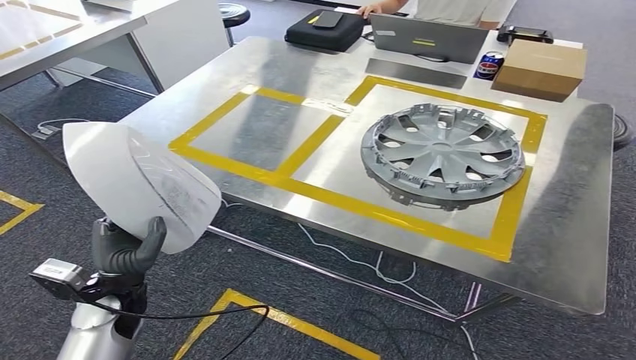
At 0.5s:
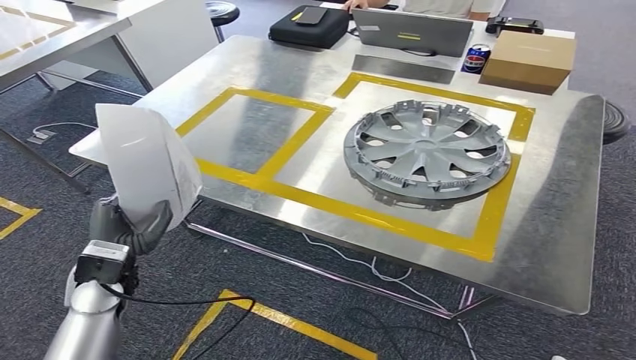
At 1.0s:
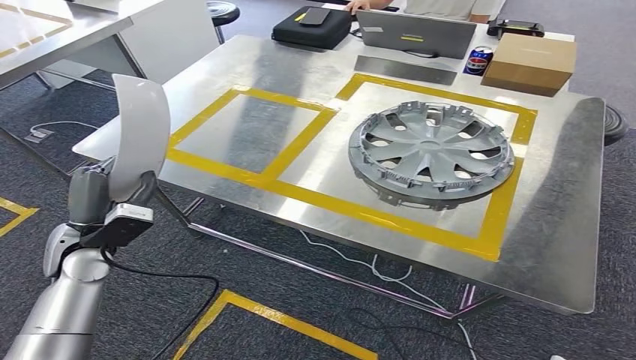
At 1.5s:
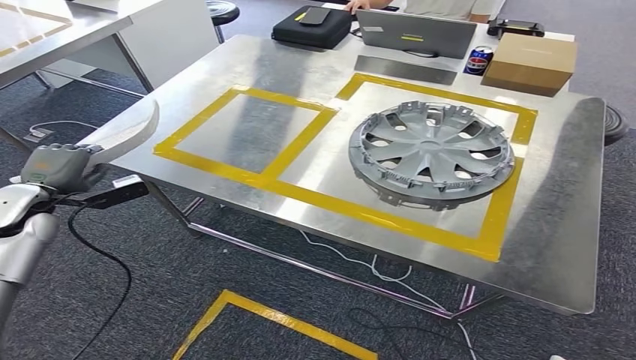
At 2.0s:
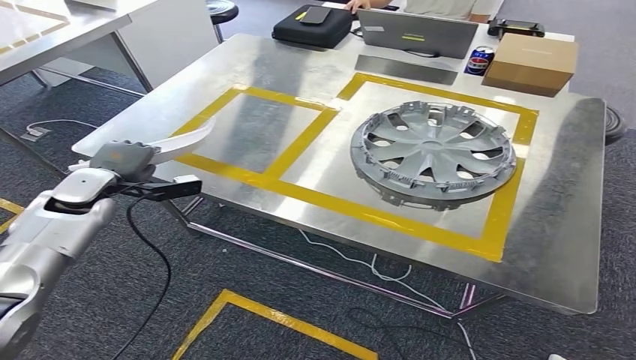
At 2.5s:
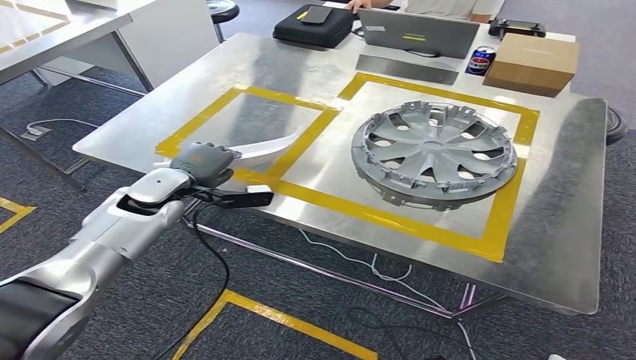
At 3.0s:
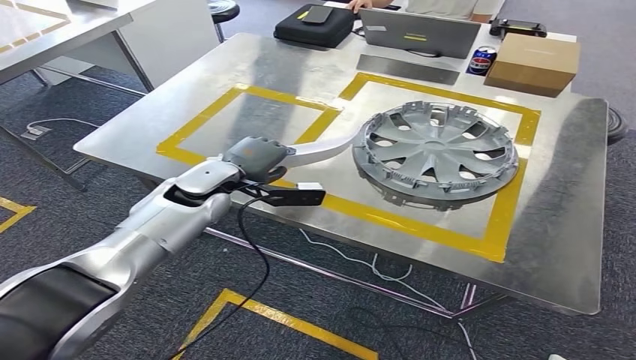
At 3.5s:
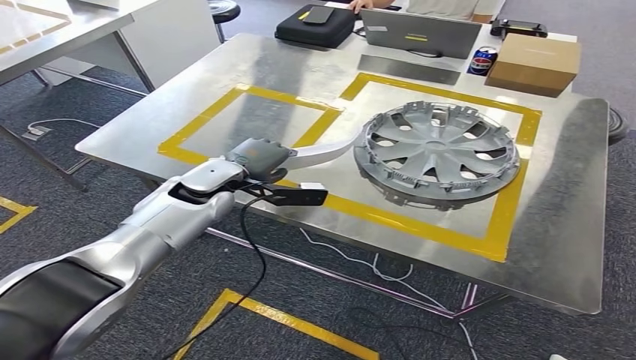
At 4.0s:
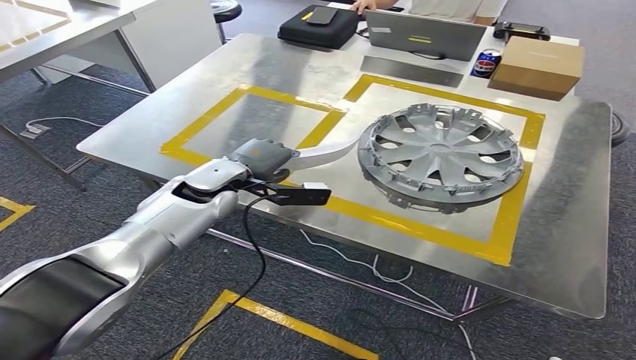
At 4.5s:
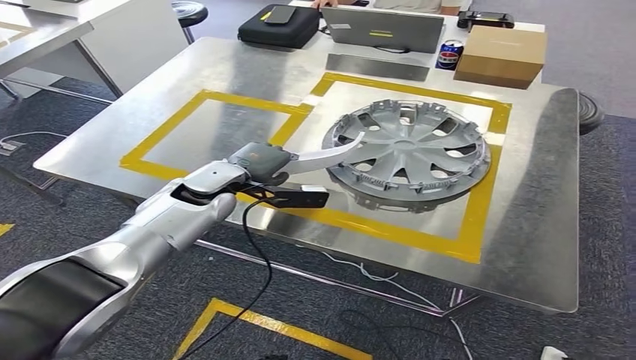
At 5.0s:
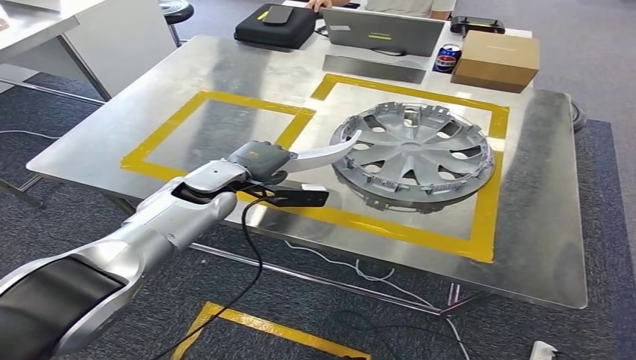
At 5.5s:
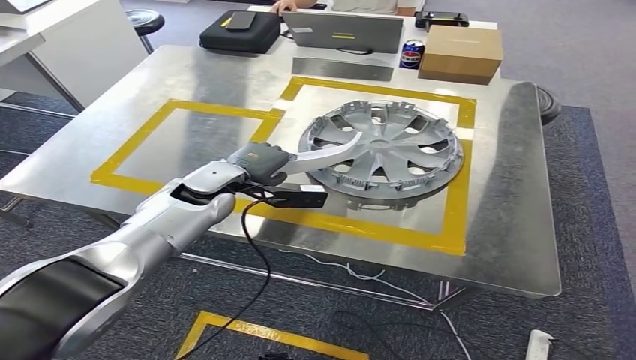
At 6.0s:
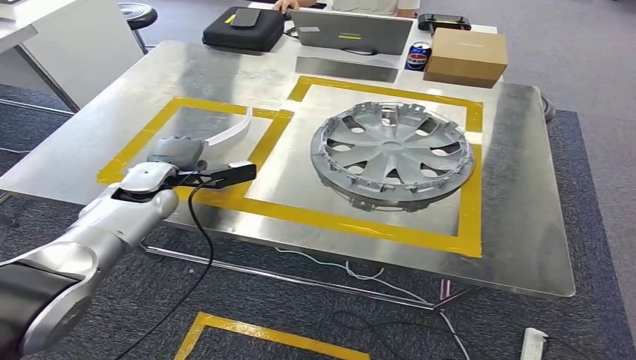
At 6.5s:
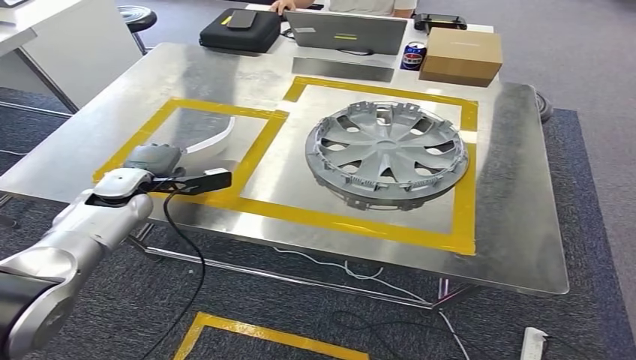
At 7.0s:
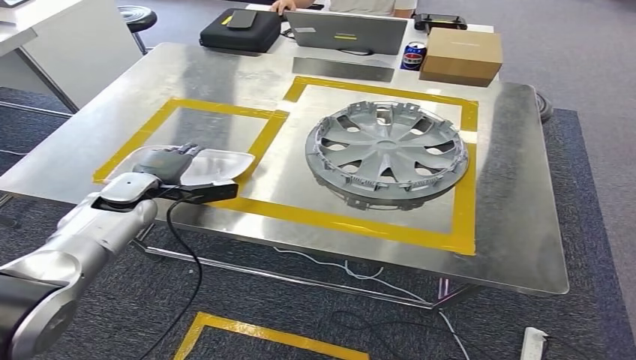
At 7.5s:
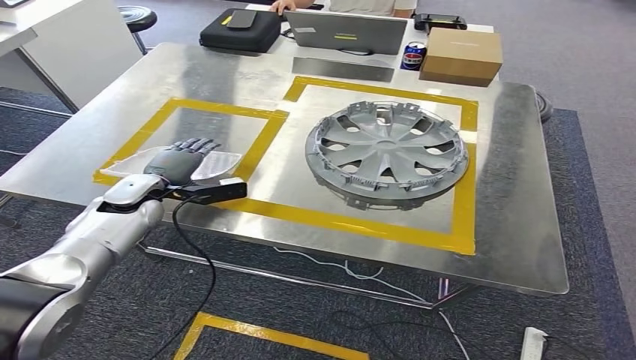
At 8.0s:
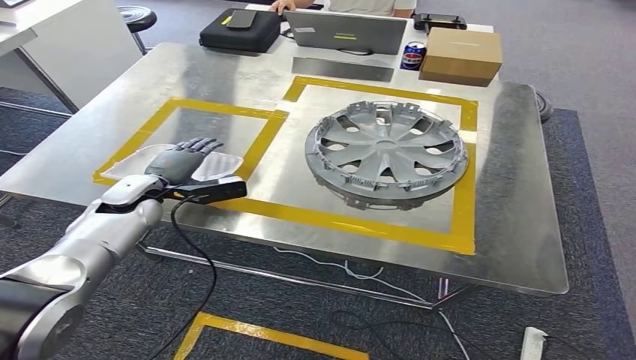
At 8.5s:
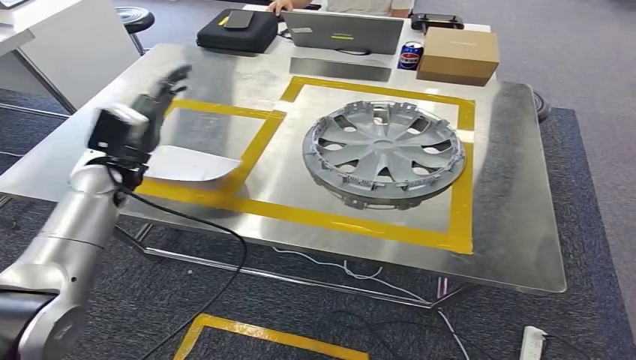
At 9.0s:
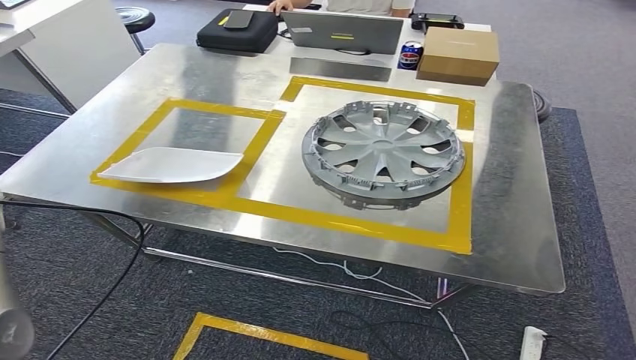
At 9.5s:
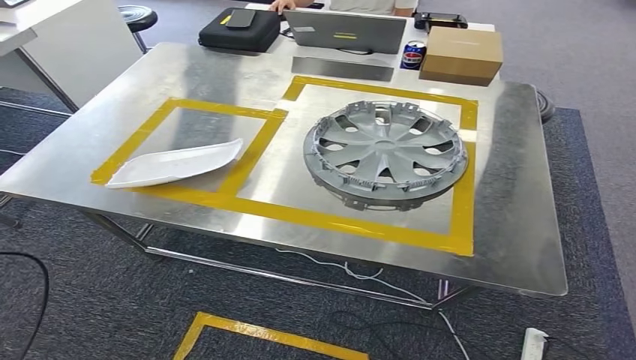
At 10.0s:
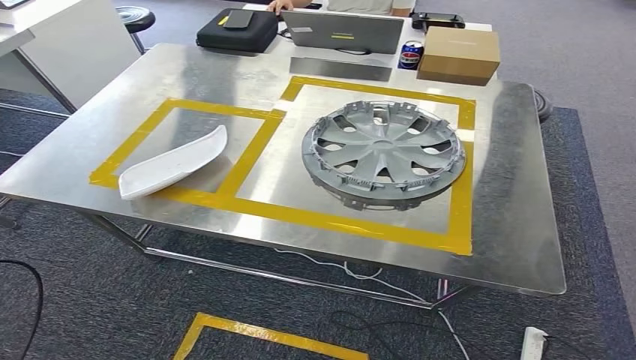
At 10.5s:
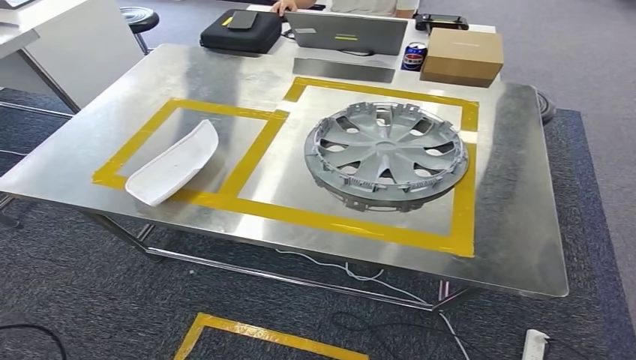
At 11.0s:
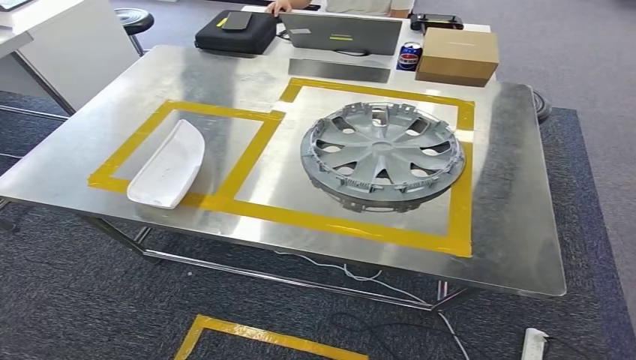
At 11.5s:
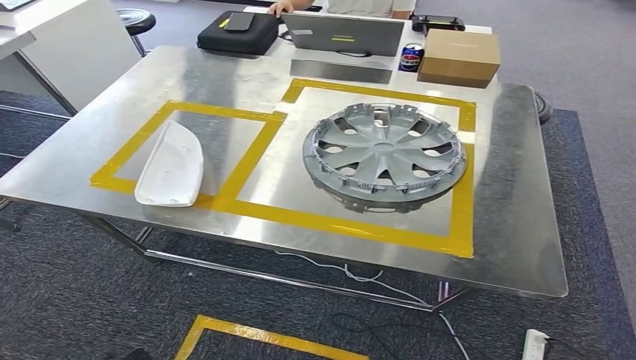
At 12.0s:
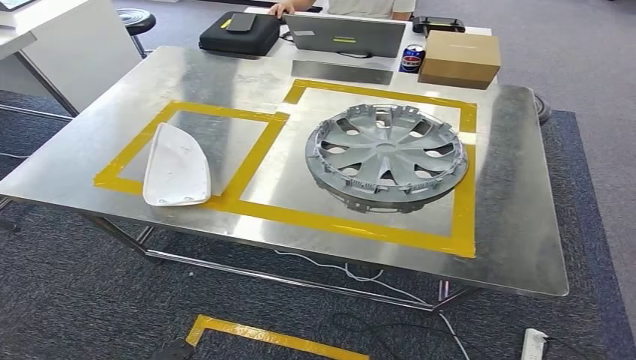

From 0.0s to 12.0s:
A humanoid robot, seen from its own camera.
Step, from 0.0s to 10.0s: Insert the small component into the corresponding slot on the workbench.
From 6.0s to 8.0s: The hands make only small movements.
From 8.0s to 10.0s: The left hand goes approximately 40 cm to the left and backward.
From 10.0s to 12.0s: The left hand is displaced downward, to the right and backward by about 50 cm.

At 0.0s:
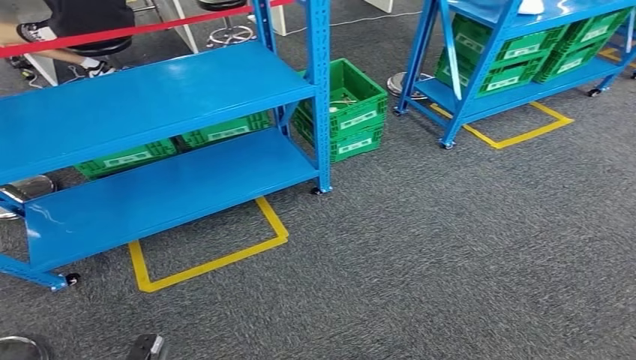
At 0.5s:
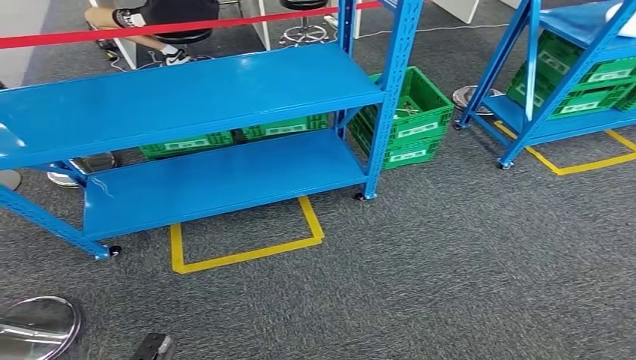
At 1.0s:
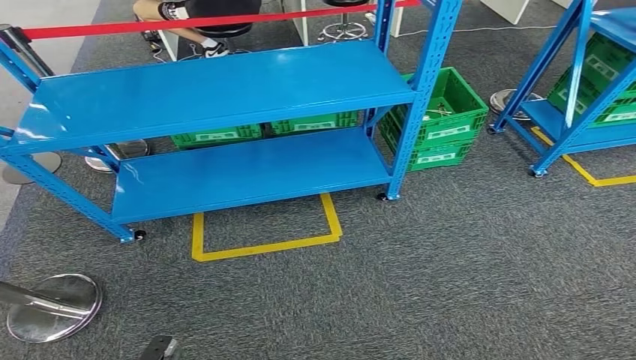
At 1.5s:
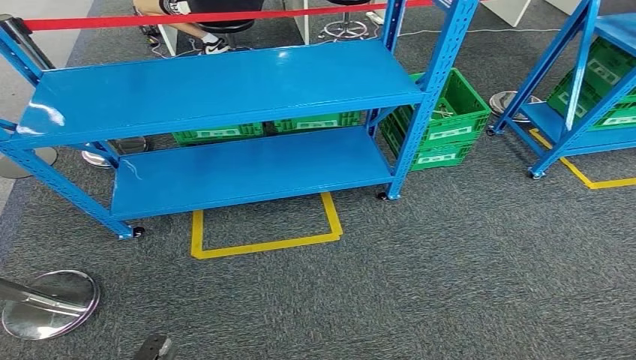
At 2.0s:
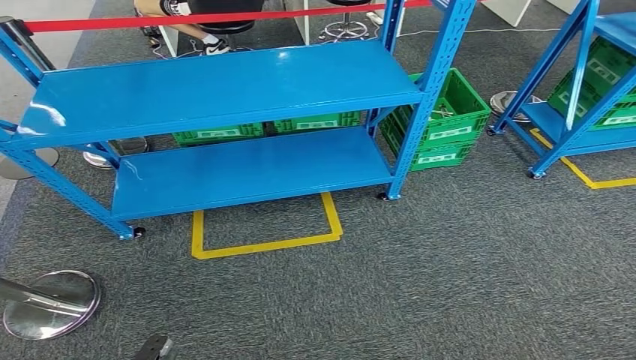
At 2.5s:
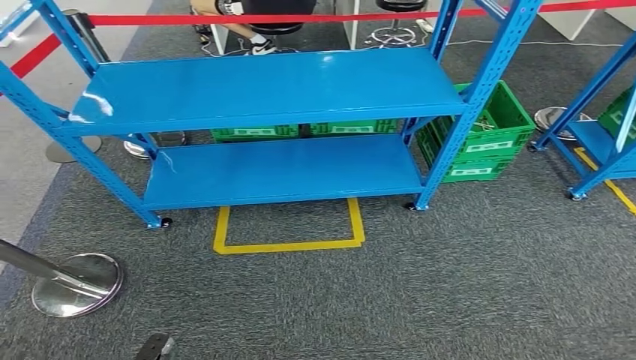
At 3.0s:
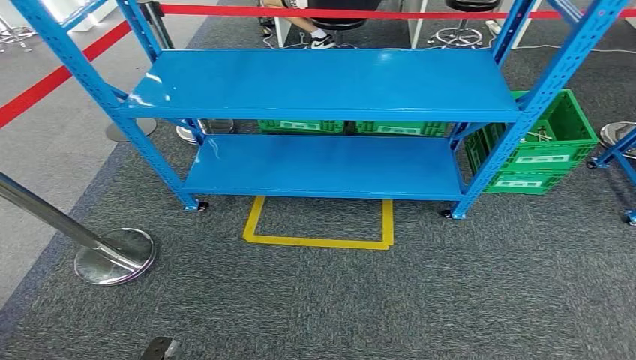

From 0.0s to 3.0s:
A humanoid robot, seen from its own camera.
Step, from 0.0s to 3.0s: Return to the initial position at the workbench.
